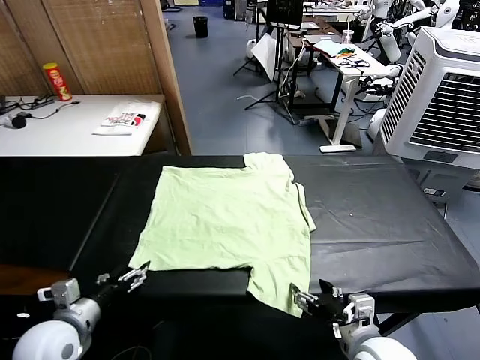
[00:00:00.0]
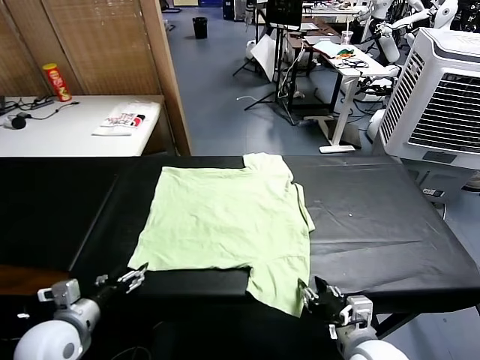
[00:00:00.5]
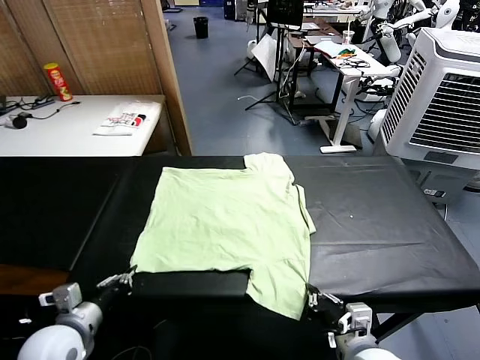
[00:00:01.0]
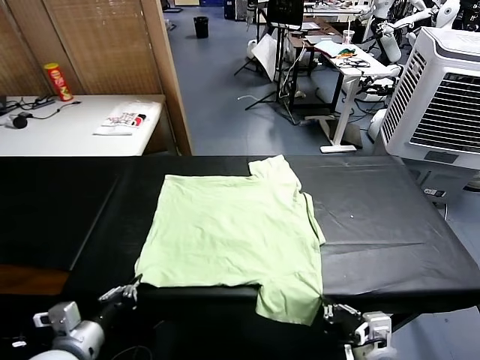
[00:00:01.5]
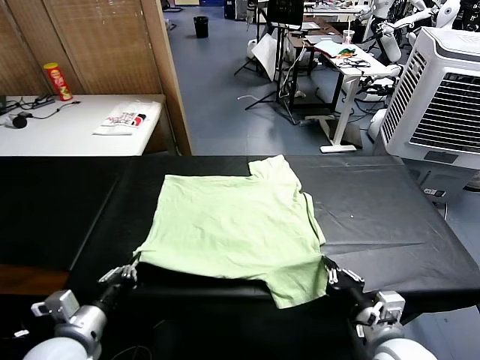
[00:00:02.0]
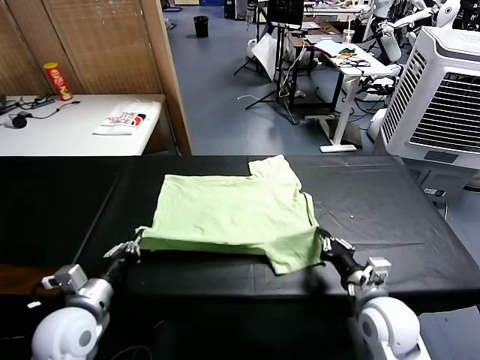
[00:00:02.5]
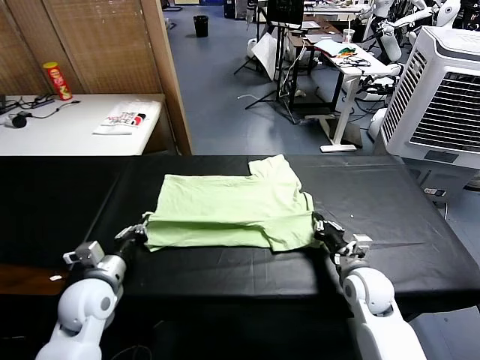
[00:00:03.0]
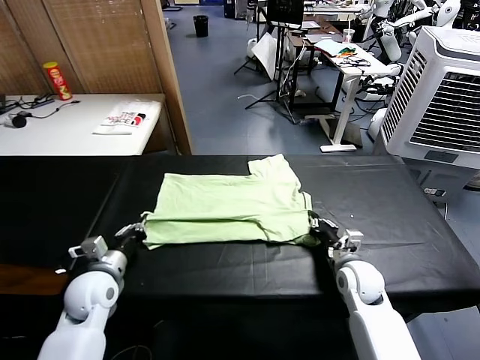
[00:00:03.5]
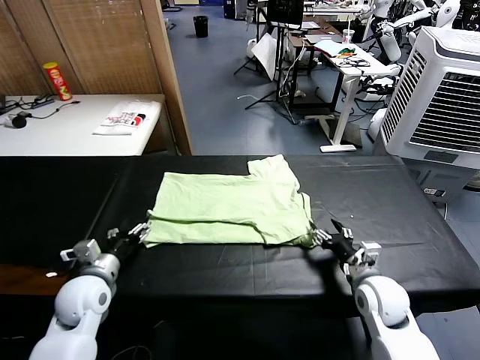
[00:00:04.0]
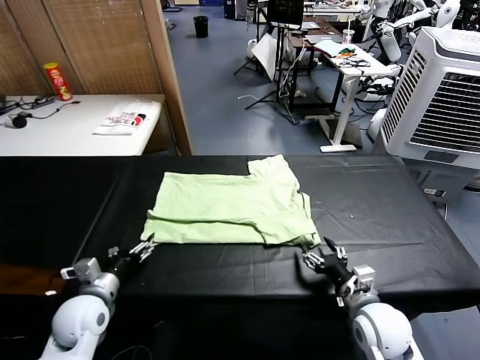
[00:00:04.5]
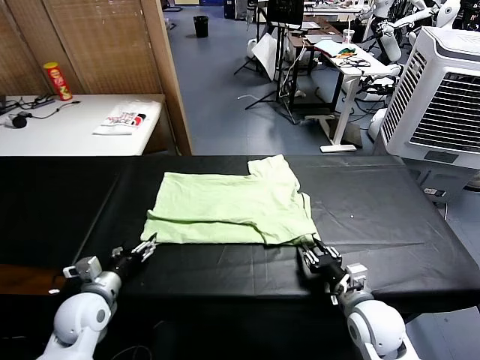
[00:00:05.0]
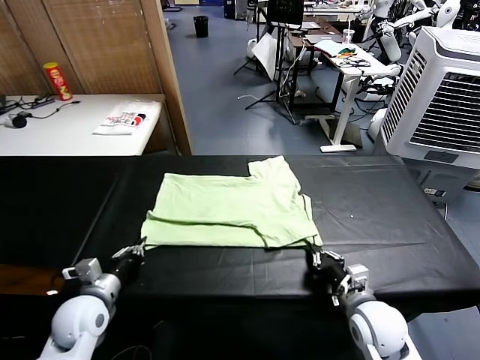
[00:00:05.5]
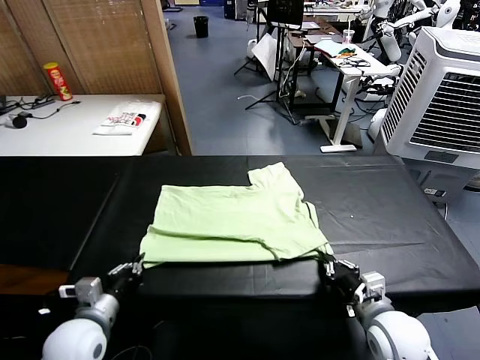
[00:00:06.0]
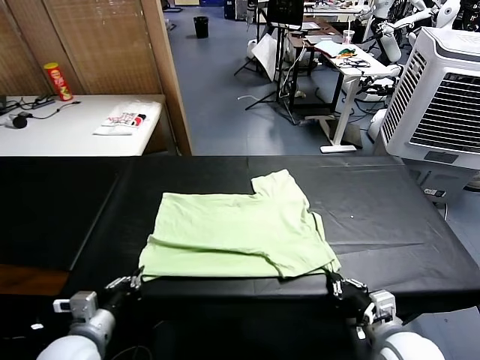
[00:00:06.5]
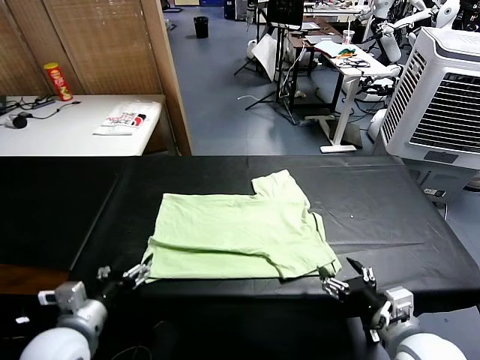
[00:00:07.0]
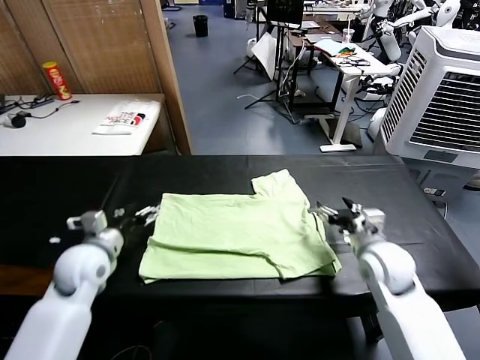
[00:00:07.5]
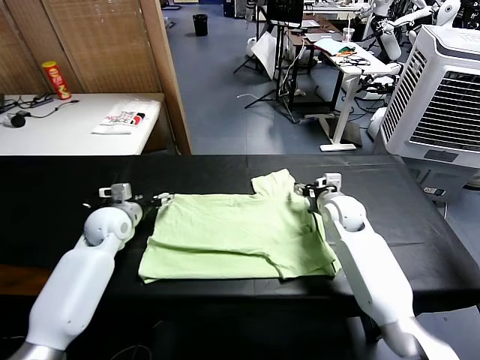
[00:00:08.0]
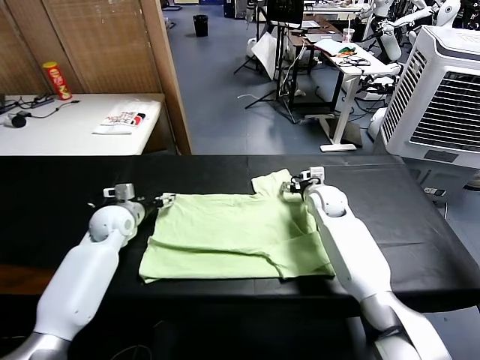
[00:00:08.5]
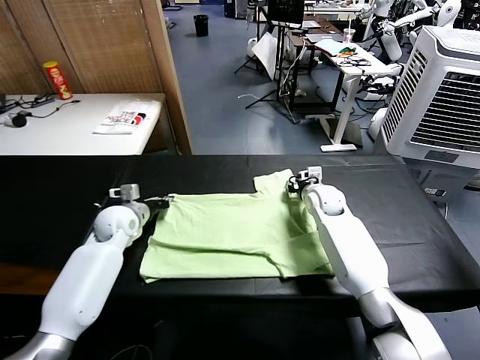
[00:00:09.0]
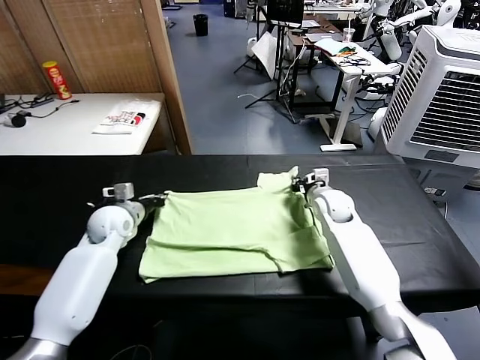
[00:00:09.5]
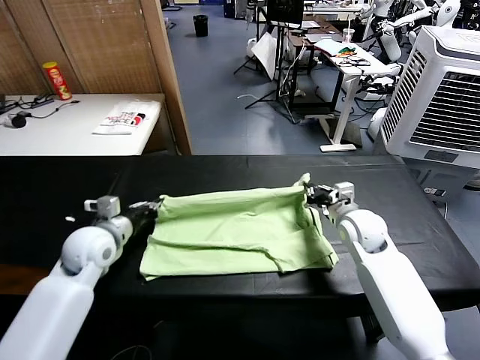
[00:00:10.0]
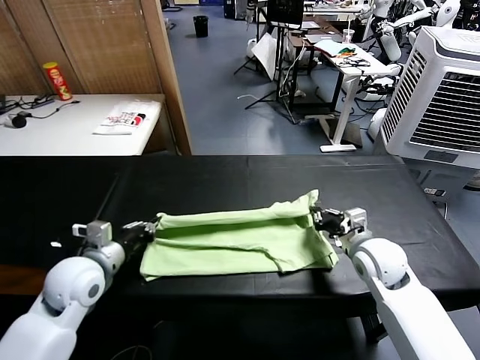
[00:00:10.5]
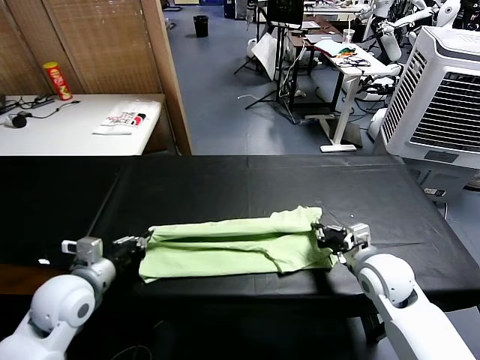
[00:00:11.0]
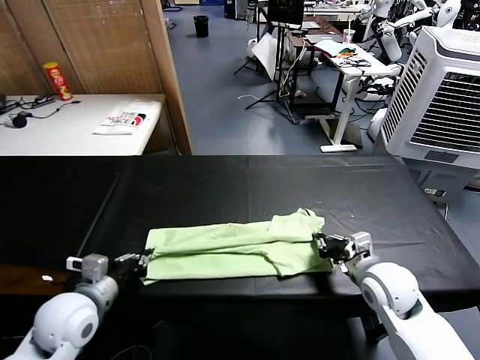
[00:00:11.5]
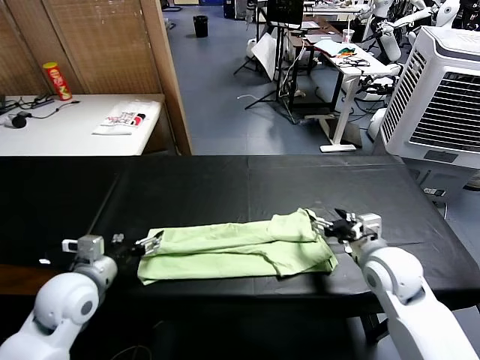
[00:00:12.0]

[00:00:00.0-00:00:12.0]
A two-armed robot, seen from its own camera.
Task of the whole recording: fold and organize the clothes.
Step, 00:00:00.0 to 00:00:01.0: use both grippers simultaneously to clamp the lower edge of the clothing fabric.
Step, 00:00:01.5 to 00:00:04.0: use both grippers to drag the lower edge of the fabric forward and fold it over the upper edge.
Step, 00:00:04.5 to 00:00:06.5: Drag the clothes downward with both gripper.
Step, 00:00:07.0 to 00:00:09.0: use both grippers simultaneously to clamp the upper edge of the clothing fabric.
Step, 00:00:09.5 to 00:00:11.5: use both grippers to drag the upper edge of the fabric backward and fold it over the lower edge.
00:00:02.0 to 00:00:04.0: The left gripper travels forward by approximately 10 cm, and opens; the right gripper goes forward and returns, about 15 cm each way, and opens up.
00:00:04.0 to 00:00:06.0: The two grippers go about 5 cm backward. The right gripper closes its fingers; the left gripper closes its fingers.
00:00:06.0 to 00:00:08.0: The grippers both shift forward by some 30 cm. The right gripper opens its fingers; the left gripper opens.
00:00:08.0 to 00:00:10.0: The grippers both shift backward by some 10 cm. The right gripper closes its fingers. The left gripper closes.
00:00:10.0 to 00:00:12.0: The left gripper shifts some 10 cm backward, and opens its fingers, while the right gripper opens up.

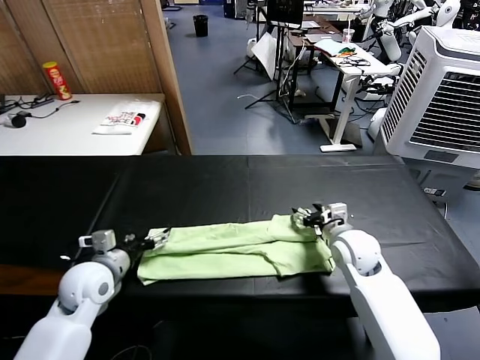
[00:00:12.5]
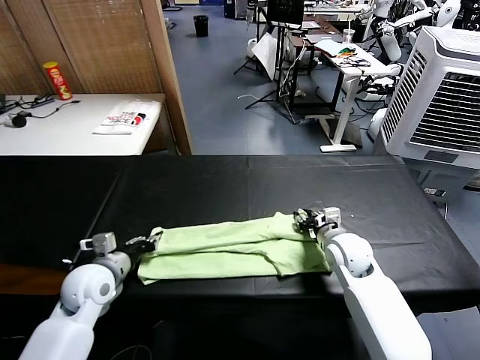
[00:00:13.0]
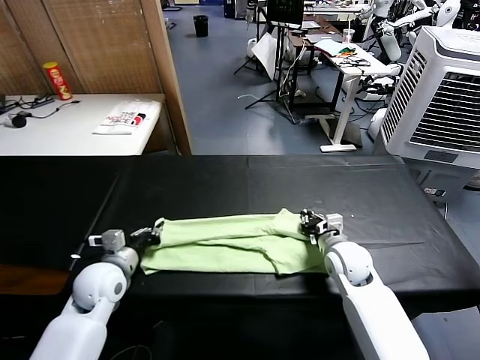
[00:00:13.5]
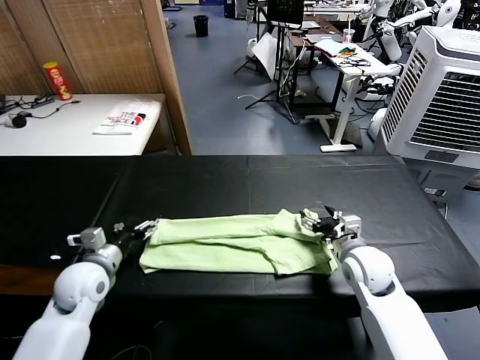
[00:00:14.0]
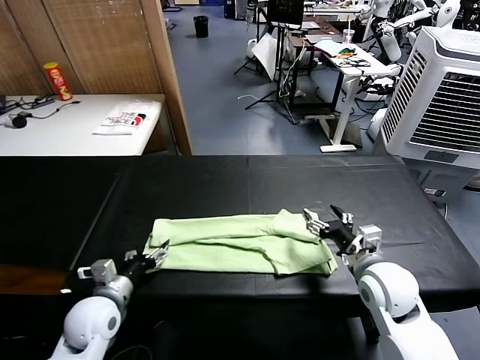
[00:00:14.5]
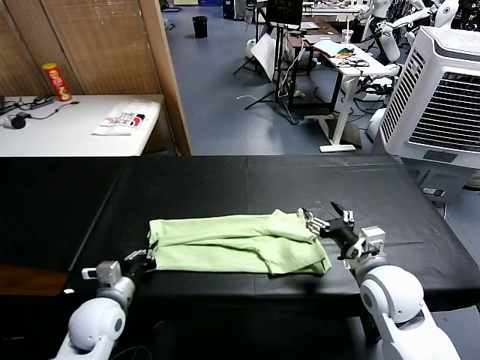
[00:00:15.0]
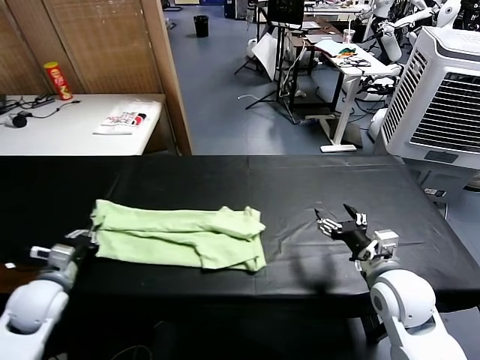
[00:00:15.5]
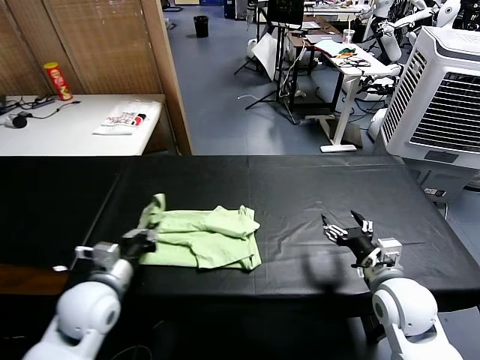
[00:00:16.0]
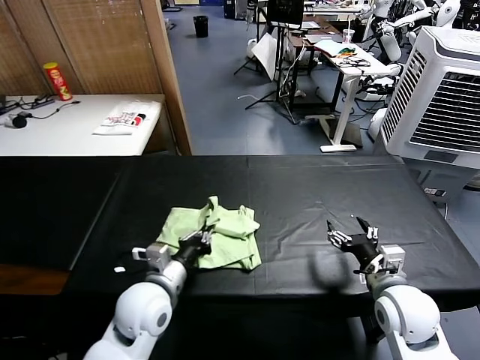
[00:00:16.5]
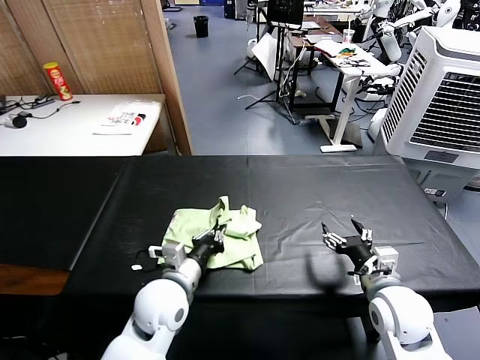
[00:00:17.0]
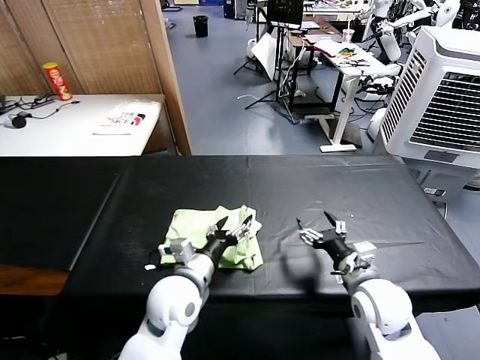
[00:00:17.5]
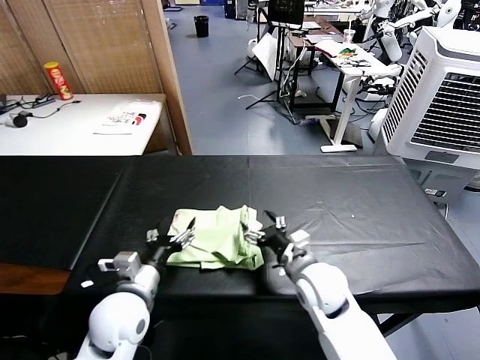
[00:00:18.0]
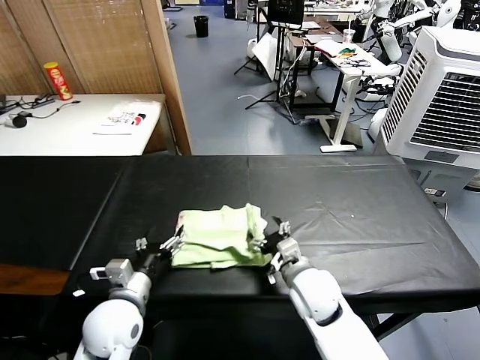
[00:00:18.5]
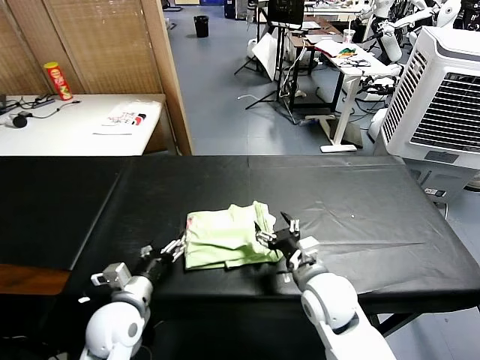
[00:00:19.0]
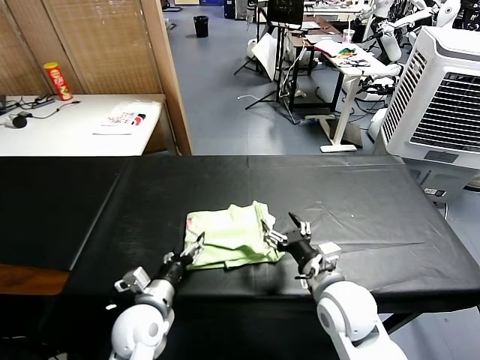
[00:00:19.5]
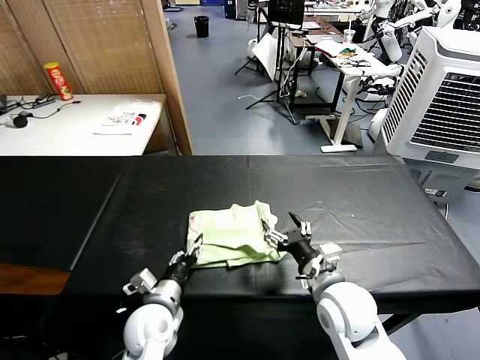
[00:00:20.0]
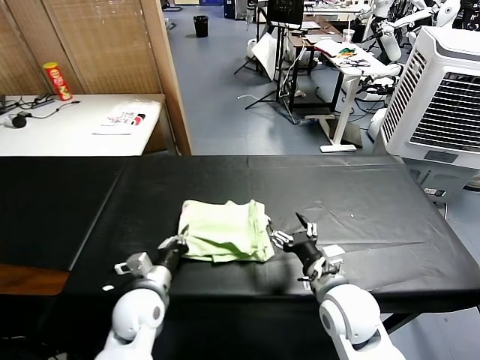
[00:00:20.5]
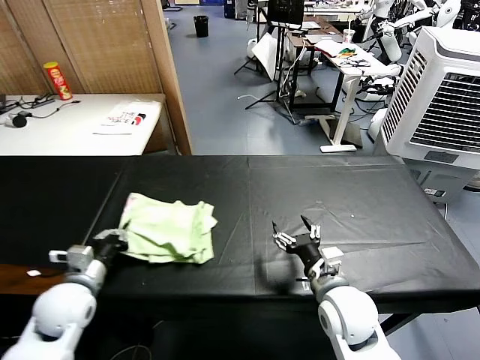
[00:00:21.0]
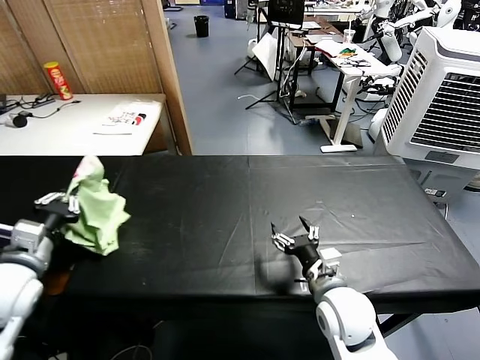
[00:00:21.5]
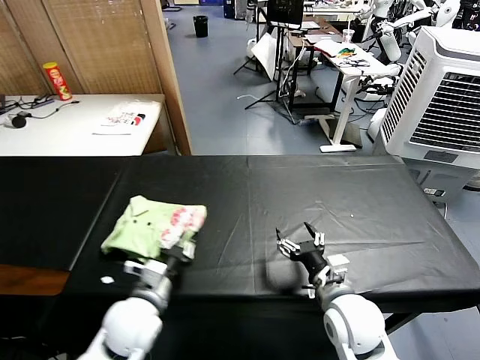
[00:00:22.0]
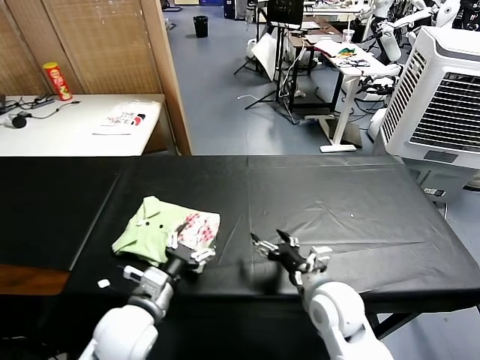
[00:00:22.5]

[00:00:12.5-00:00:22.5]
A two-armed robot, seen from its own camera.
Task of the whole recording: fold and organize the clothes.
Step, 00:00:12.5 to 00:00:14.5: use the left gripper to clamp the left edge of the fabric.
Step, 00:00:15.0 to 00:00:17.0: use the left gripper to drag the left edge of the fabric to the left and folds it over the right edge.
Step, 00:00:17.5 to 00:00:22.0: Flip the folded clothes over with left gripper.
00:00:12.5 to 00:00:14.5: The left gripper is displaced backward by some 5 cm, and closes, then opens again. Meanwhile the right gripper travels backward by approximately 10 cm, and closes, then reopens.
00:00:14.5 to 00:00:16.5: The left gripper goes roughly 15 cm to the right and upward, and closes.
00:00:16.5 to 00:00:18.5: The right gripper goes about 15 cm to the left. The left gripper is displaced to the left by approximately 5 cm, and opens its fingers.
00:00:18.5 to 00:00:20.5: The right gripper changes place by approximately 5 cm, while the left gripper changes place by approximately 5 cm, and closes up.
00:00:20.5 to 00:00:22.5: The left gripper shifts about 10 cm upward and backward, travels to the left and back again, about 20 cm each way, and opens.

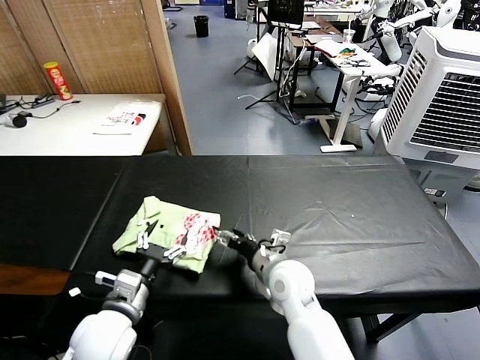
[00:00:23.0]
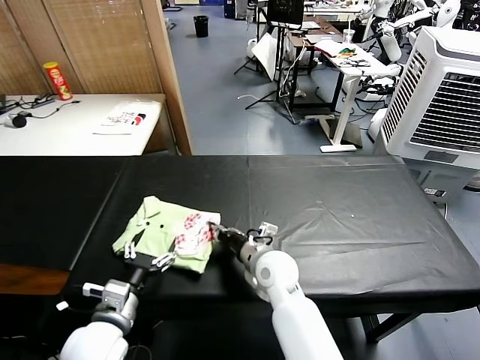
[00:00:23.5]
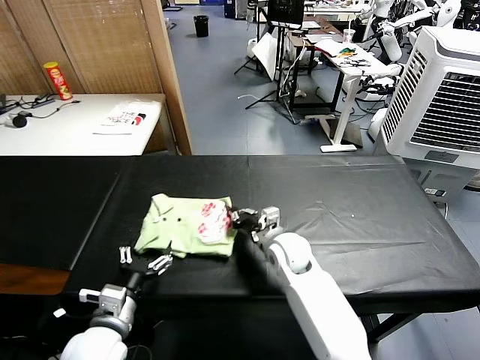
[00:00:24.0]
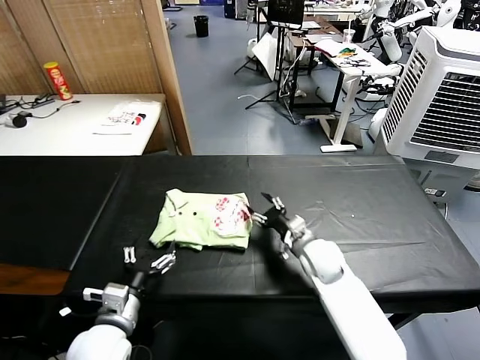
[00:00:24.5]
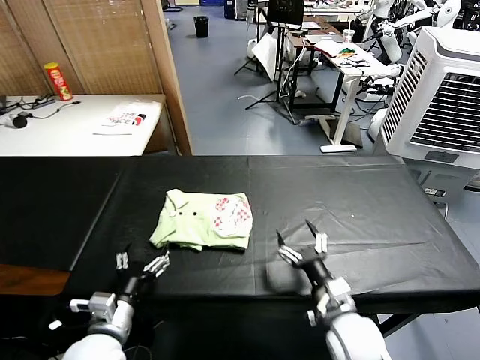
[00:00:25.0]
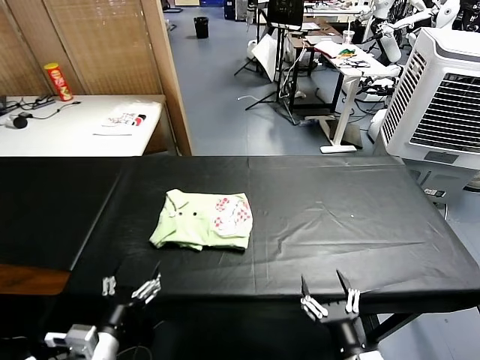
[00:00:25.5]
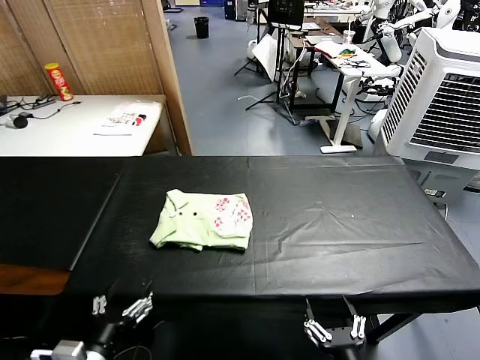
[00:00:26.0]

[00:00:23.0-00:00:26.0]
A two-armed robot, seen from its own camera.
Task of the whole recording: fold and organize the clothes.
00:00:23.0 to 00:00:24.5: The right gripper heads to the right and forward, covering about 10 cm, and closes, then opens again.
00:00:24.5 to 00:00:26.0: The right gripper goes approximately 35 cm backward, and opens up. Meanwhile the left gripper goes roughly 10 cm backward.
